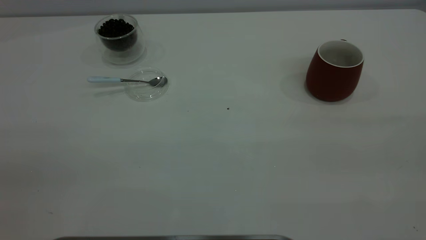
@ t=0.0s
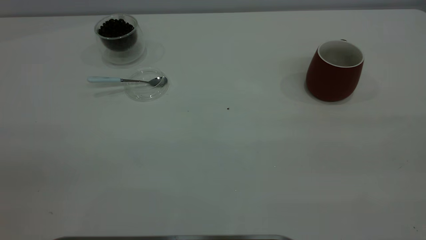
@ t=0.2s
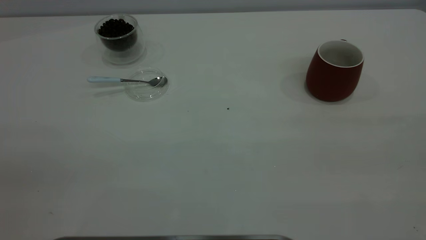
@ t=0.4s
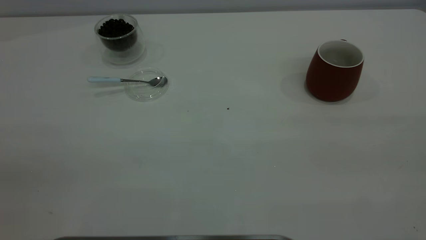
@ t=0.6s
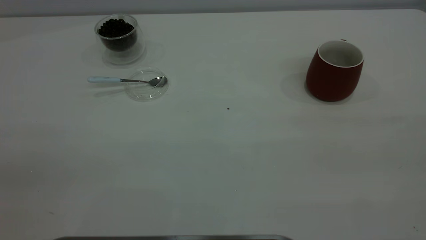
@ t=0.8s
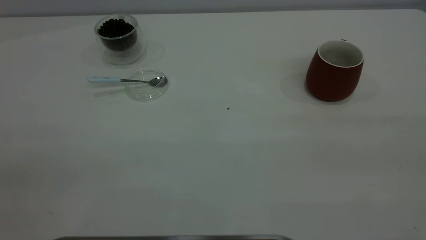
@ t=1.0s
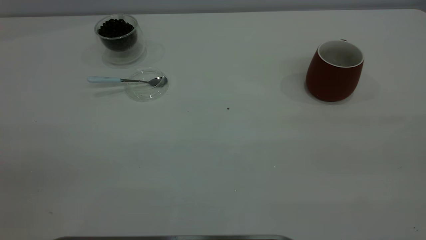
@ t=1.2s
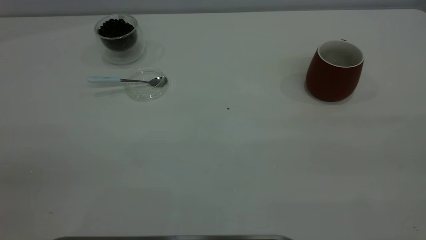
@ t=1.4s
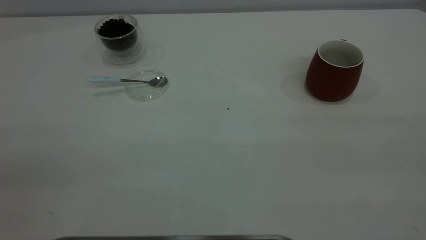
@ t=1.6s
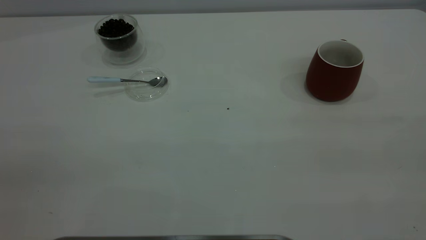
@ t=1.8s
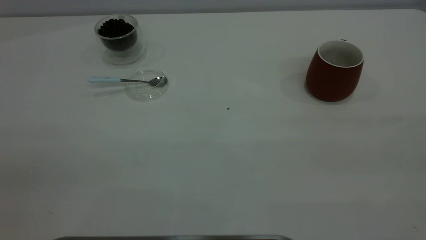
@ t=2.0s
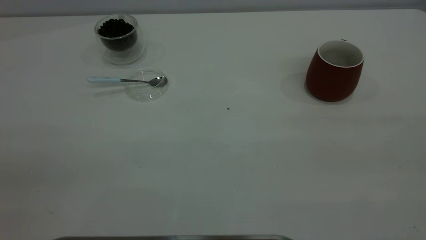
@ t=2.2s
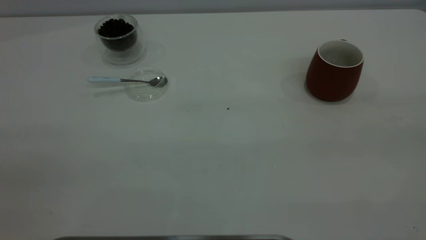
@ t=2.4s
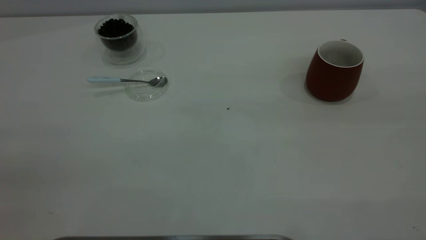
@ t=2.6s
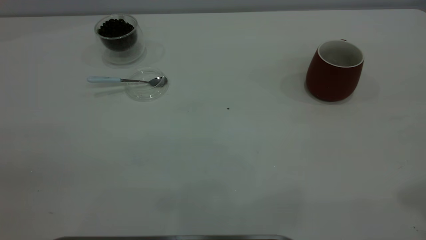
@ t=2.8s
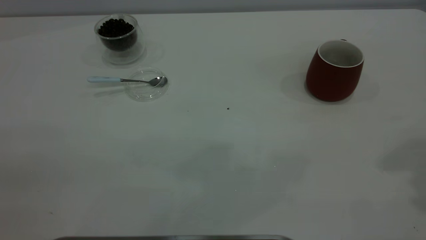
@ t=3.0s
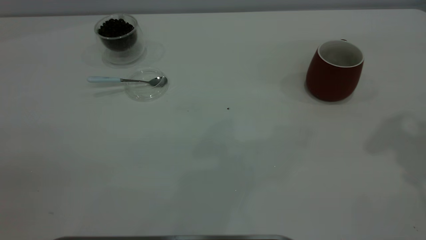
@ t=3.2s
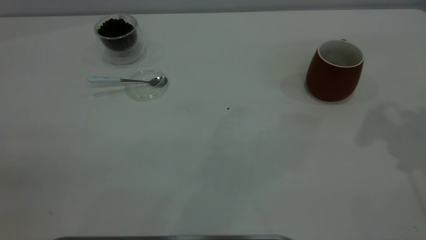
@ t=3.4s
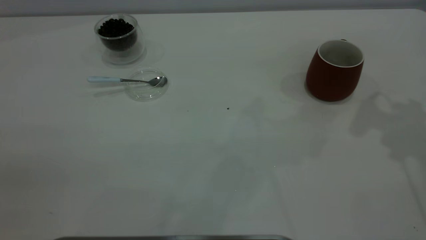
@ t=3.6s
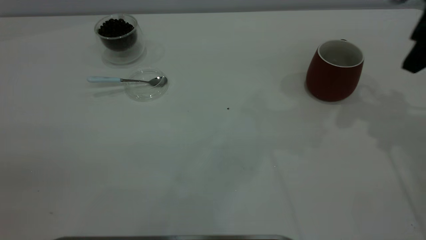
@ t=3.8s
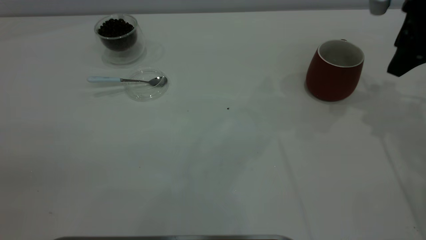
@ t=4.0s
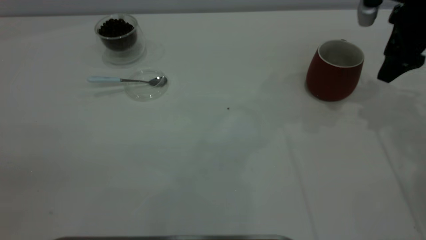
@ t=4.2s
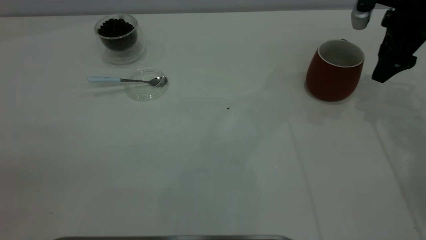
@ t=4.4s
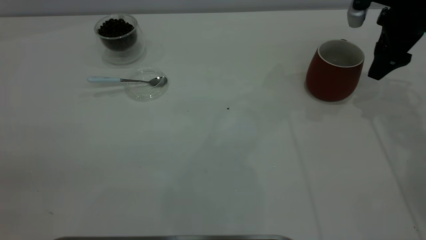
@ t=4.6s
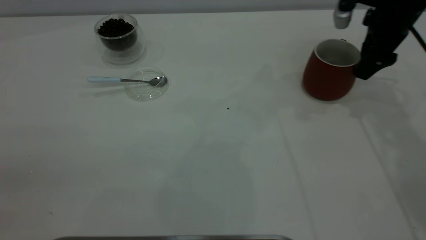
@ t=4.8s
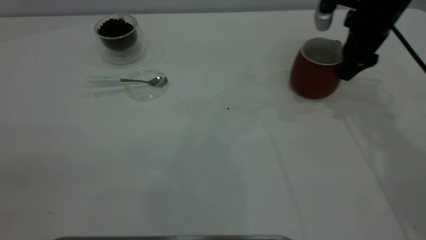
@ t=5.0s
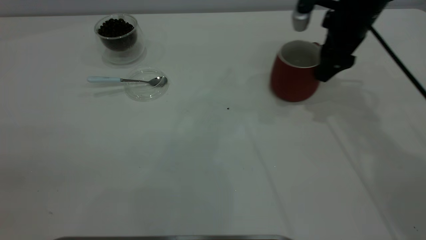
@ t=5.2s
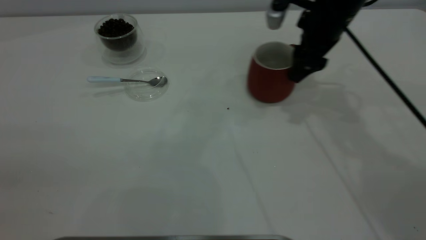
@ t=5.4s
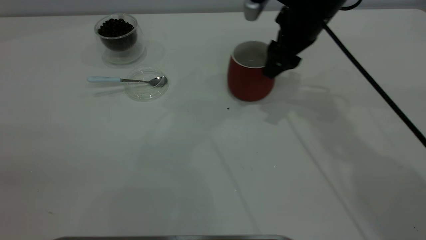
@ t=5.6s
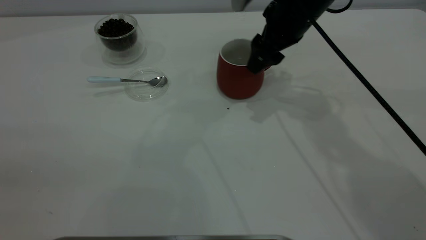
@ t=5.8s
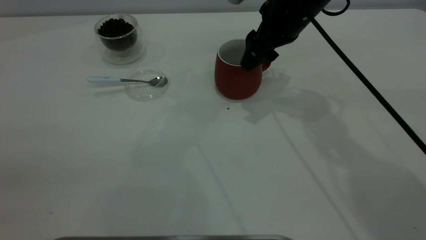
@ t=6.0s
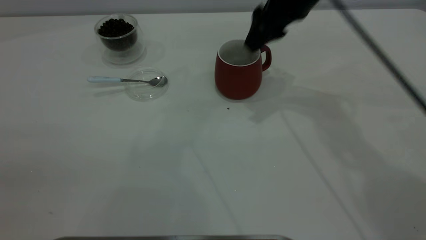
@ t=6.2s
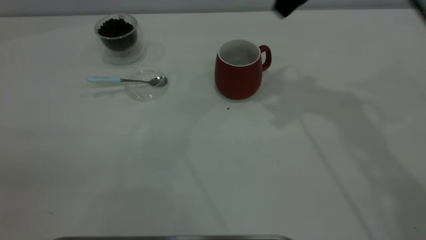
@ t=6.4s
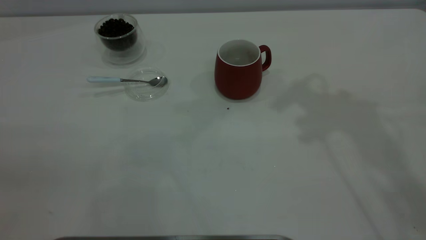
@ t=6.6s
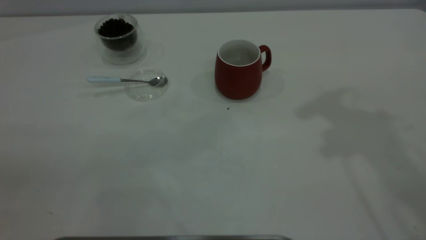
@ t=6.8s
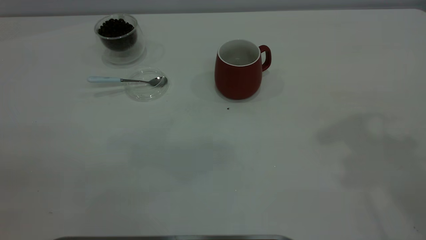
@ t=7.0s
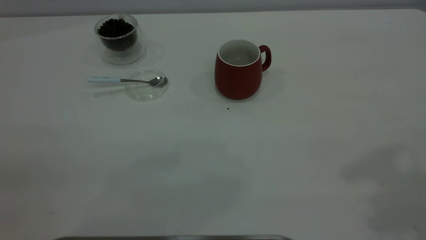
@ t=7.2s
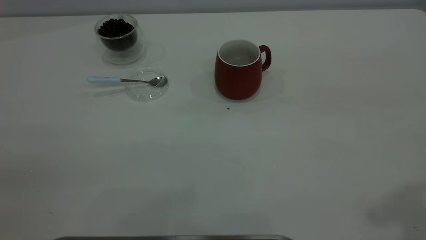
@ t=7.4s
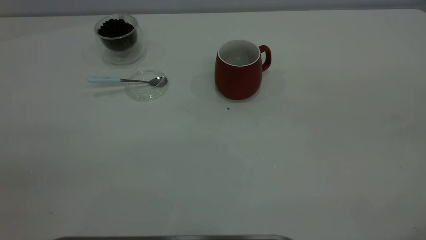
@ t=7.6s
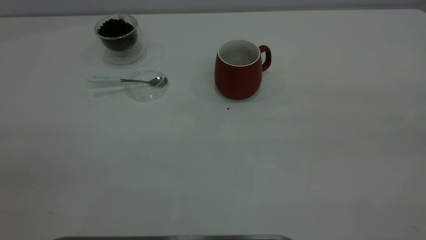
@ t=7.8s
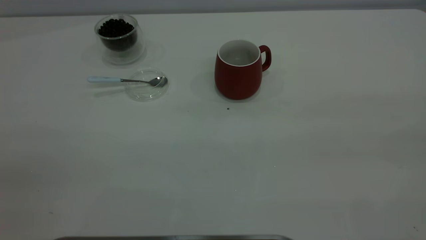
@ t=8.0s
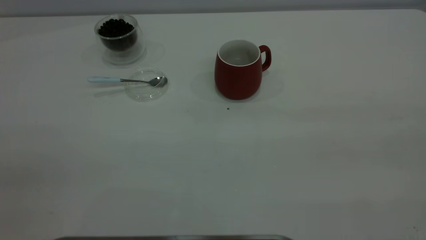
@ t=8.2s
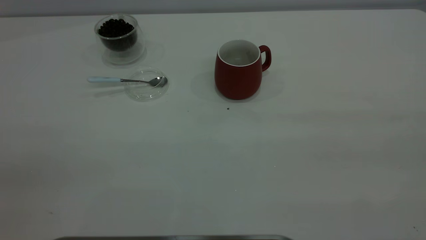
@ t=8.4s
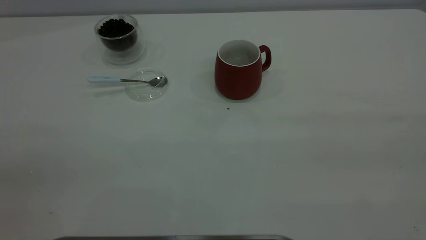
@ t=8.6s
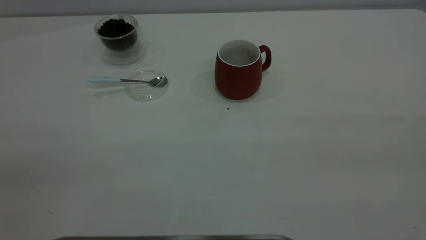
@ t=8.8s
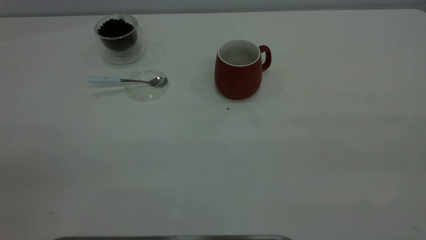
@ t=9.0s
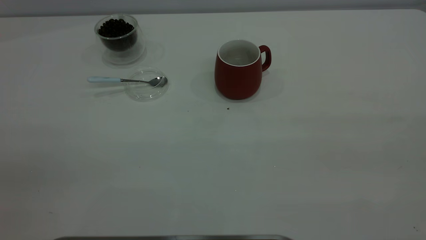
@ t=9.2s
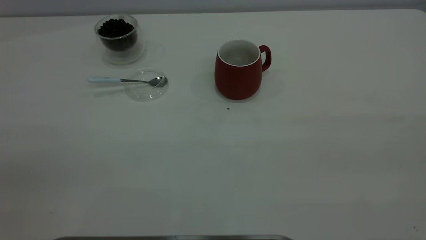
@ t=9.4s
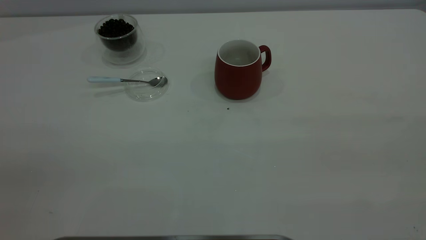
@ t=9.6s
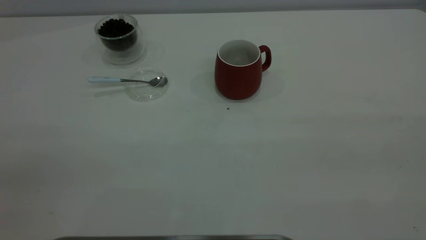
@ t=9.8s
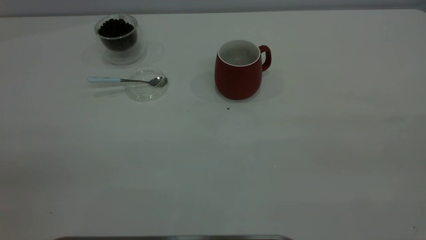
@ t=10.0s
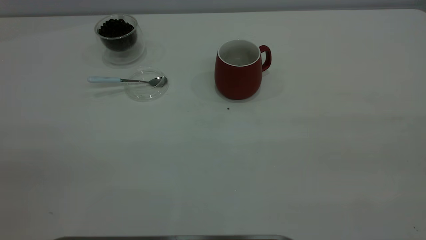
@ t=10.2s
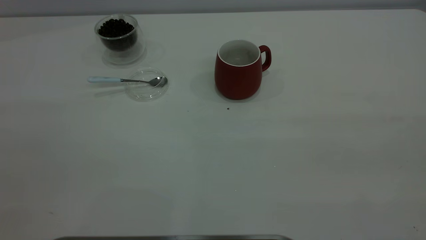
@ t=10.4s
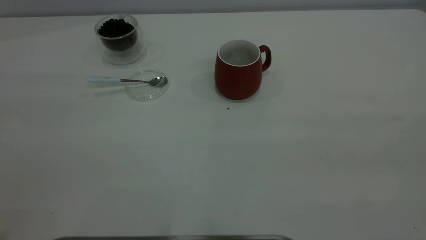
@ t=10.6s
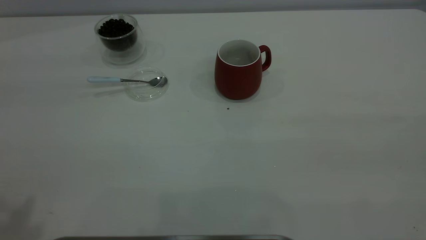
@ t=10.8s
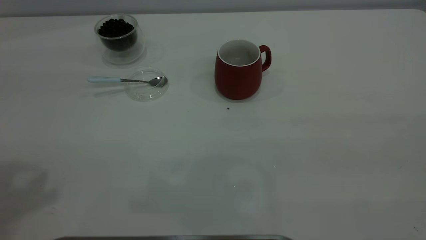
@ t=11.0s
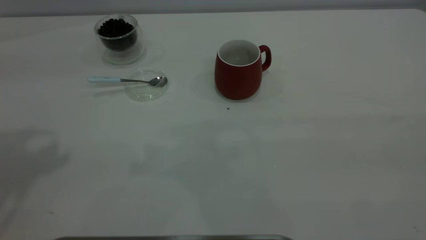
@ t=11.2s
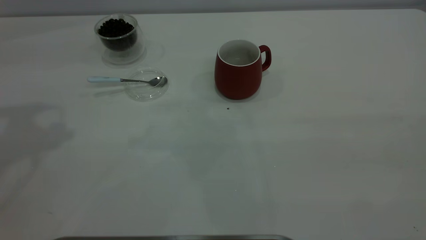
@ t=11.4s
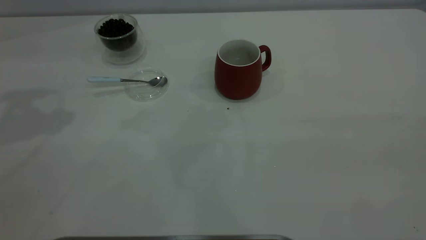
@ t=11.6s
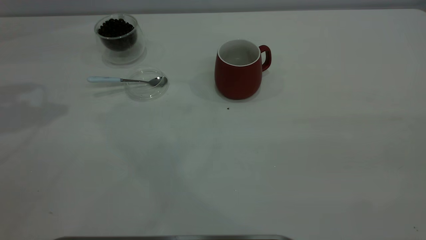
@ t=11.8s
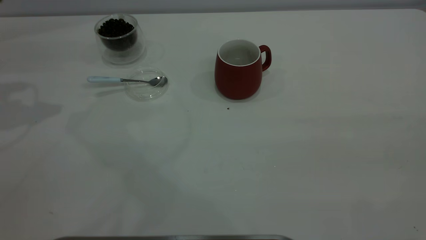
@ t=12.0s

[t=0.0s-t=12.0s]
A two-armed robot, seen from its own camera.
Task of the whole recording: the right gripper place the red cup in the center of the table, the left gripper take the blue spoon from the cup lid and scoop out the coffee beans from the coffee cup and put them into the red cup, the left gripper put the spoon back into the cup lid.
Step, t=0.0s to t=6.2s: Move the cup to the center of view.
t=0.0s to t=1.6s: The two grippers keep their place.
t=3.0s to t=4.4s: The right gripper moves downward and forward, approximately 30 cm.
t=4.4s to t=6.0s: The right gripper goes some 20 cm to the left.
t=6.0s to t=7.6s: The right gripper moves backward, upward and to the right, roughly 40 cm.

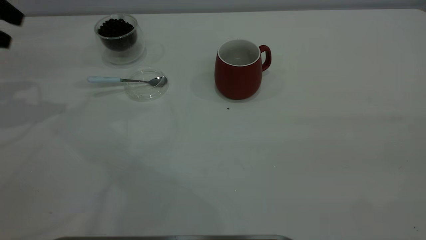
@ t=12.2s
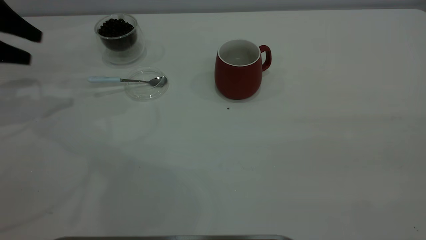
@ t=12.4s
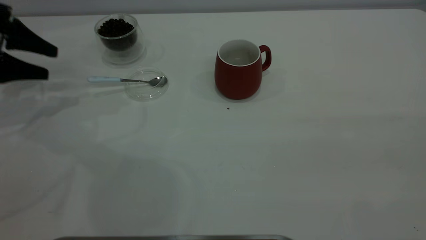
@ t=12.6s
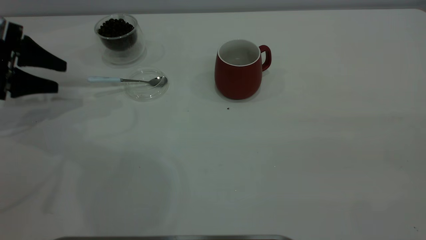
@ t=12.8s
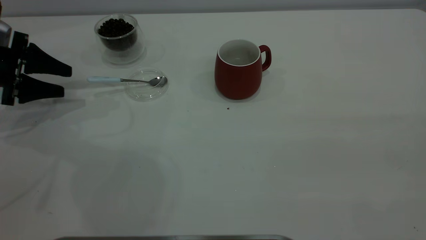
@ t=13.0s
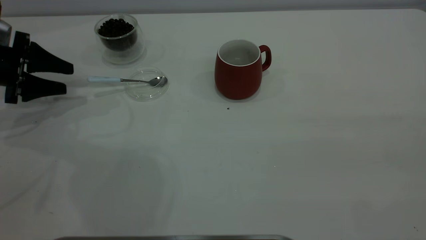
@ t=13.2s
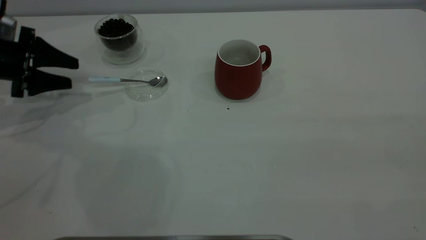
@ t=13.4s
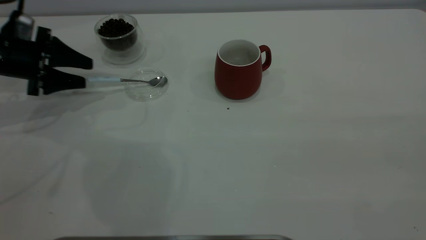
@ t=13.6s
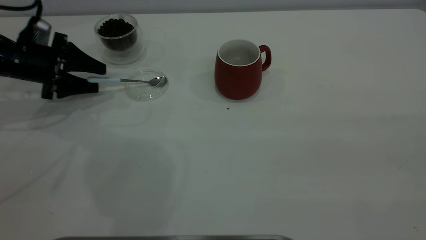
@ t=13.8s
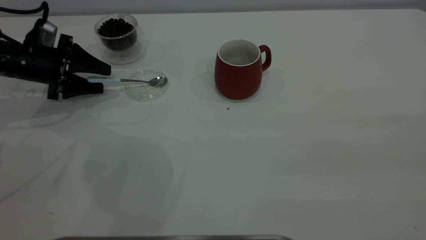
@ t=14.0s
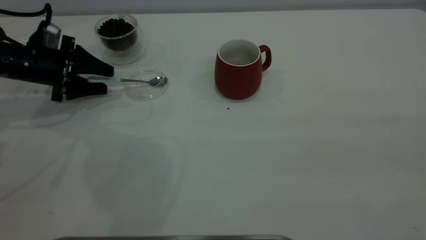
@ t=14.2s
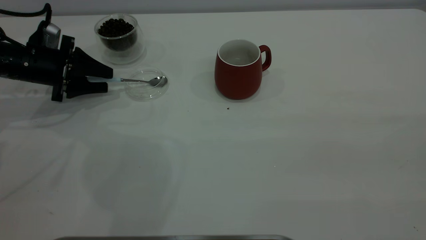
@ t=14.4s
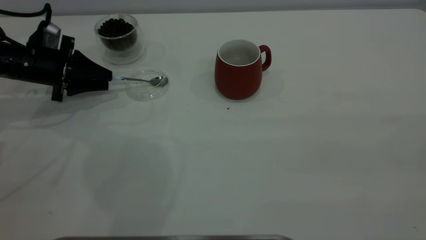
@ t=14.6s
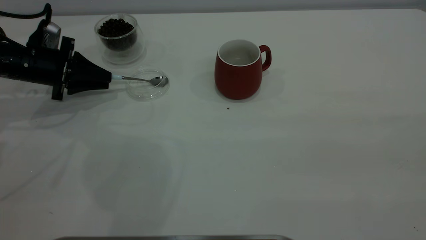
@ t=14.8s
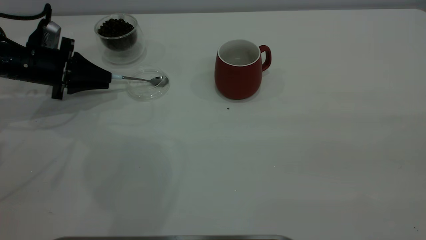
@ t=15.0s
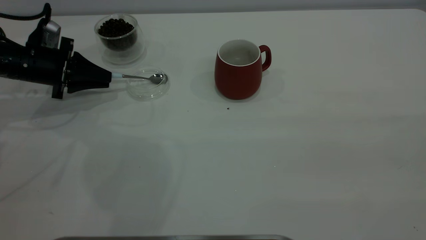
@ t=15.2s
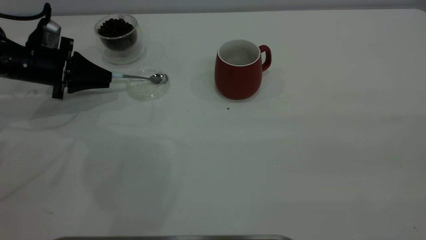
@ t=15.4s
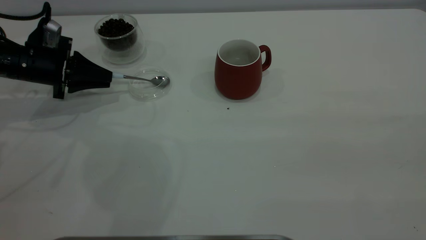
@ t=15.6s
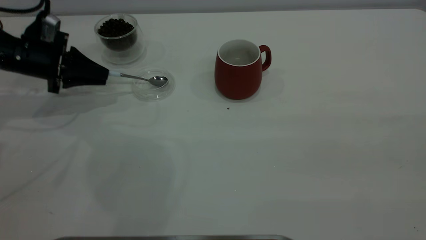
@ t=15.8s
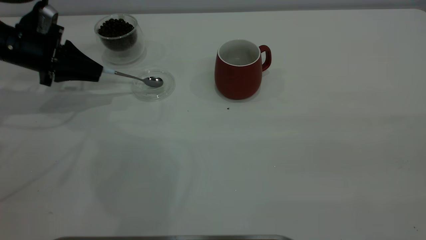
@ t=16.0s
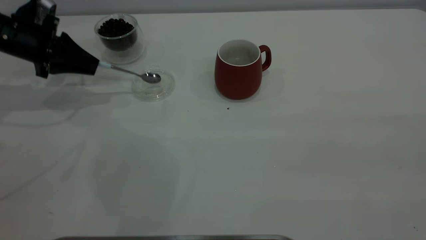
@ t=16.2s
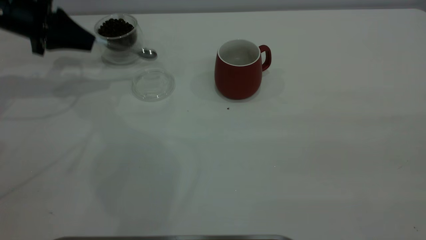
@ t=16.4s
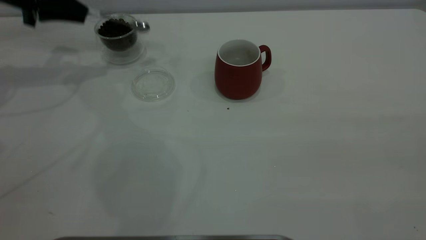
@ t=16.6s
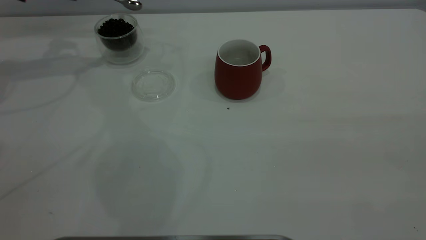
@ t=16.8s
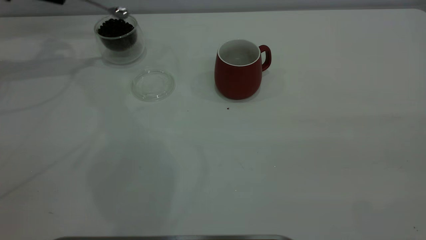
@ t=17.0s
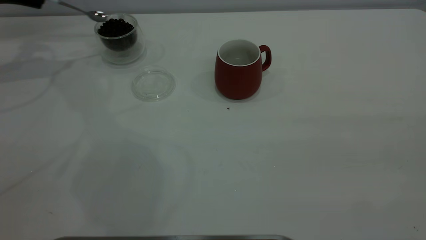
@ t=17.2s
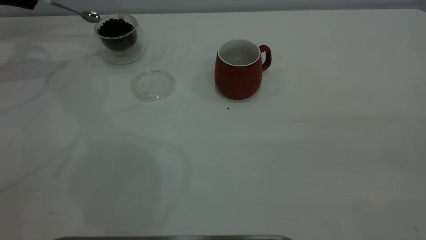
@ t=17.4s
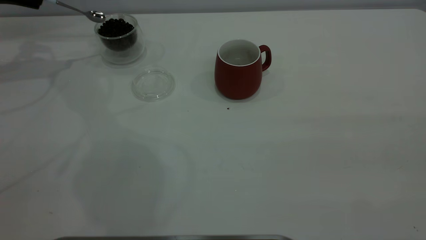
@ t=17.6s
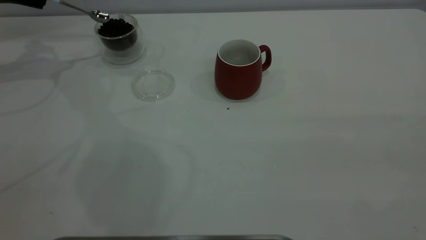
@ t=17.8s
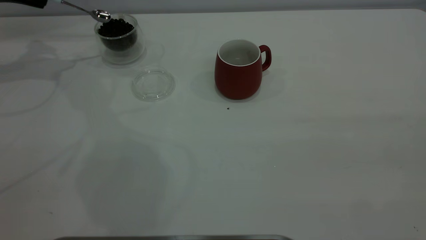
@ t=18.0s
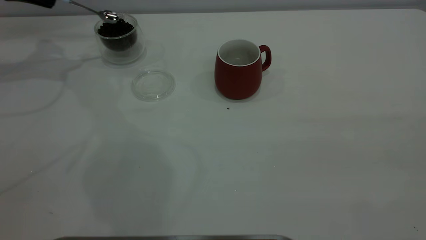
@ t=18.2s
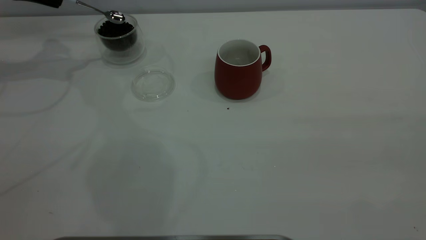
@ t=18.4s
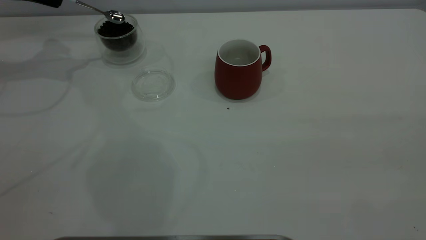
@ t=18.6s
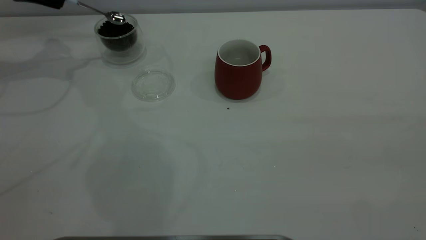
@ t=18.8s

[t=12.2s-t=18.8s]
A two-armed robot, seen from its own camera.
Task of the whole recording: the right gripper place the red cup in the center of the table, the left gripper take the blue spoon from the cup lid and scoop out the coffee beans from the coffee cup and put them into the red cup, the left gripper put the spoon back into the cup lid.
Step, t=12.2s to t=16.2s: Pick up the spoon.
t=12.2s to t=13.8s: The left gripper is displaced downward by some 15 cm.
t=13.8s to t=15.4s: The left gripper closes its fingers.
t=15.4s to t=17.2s: The left gripper travels upward, to the left and forward by approximately 20 cm.